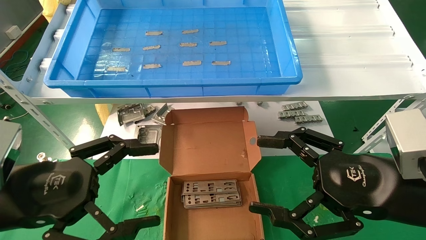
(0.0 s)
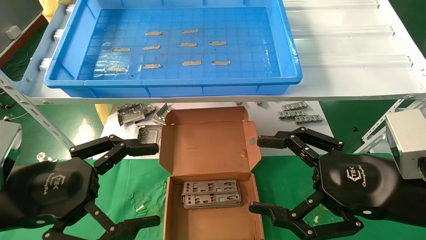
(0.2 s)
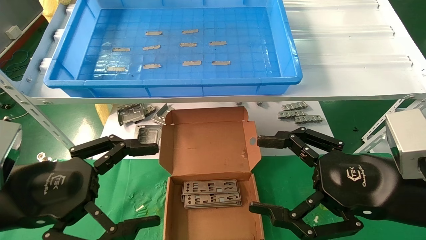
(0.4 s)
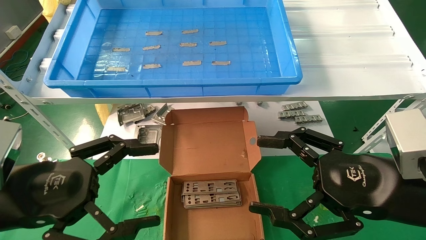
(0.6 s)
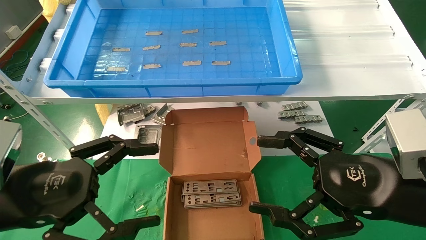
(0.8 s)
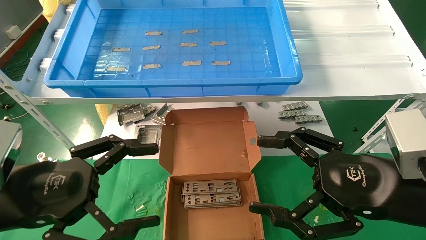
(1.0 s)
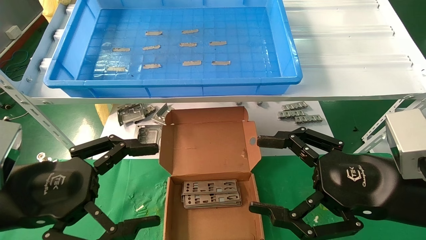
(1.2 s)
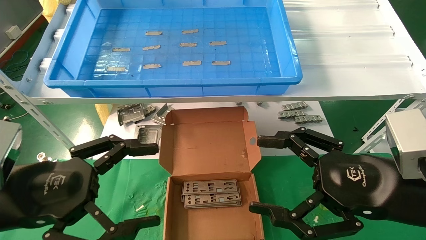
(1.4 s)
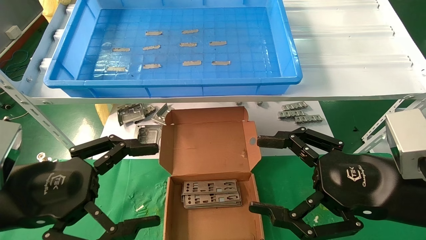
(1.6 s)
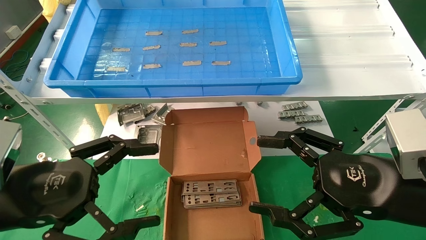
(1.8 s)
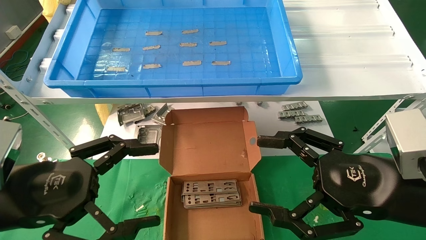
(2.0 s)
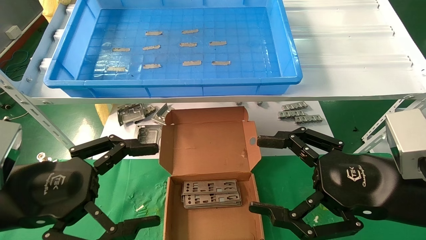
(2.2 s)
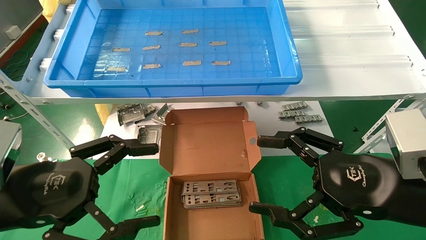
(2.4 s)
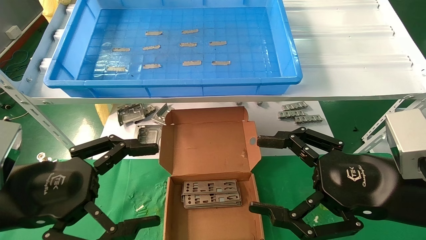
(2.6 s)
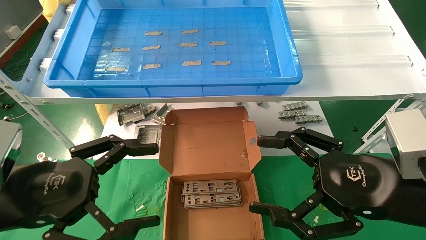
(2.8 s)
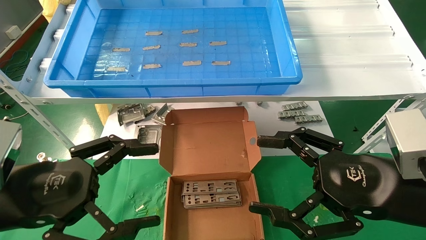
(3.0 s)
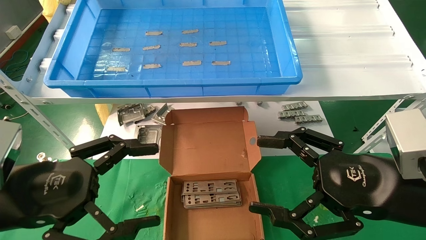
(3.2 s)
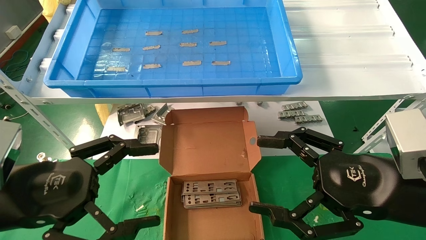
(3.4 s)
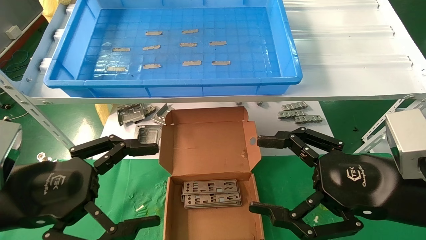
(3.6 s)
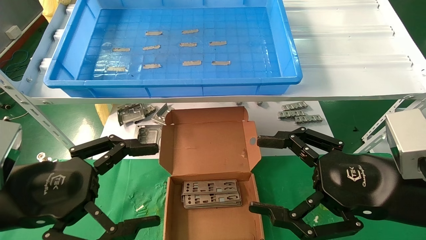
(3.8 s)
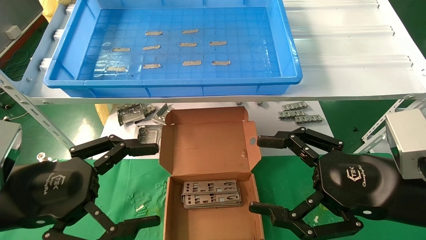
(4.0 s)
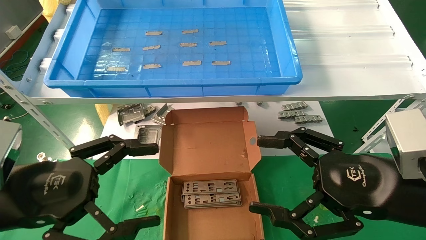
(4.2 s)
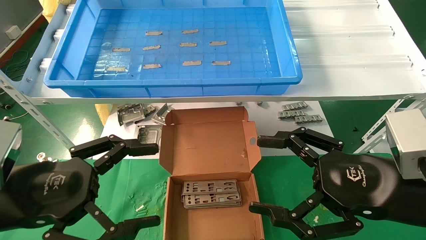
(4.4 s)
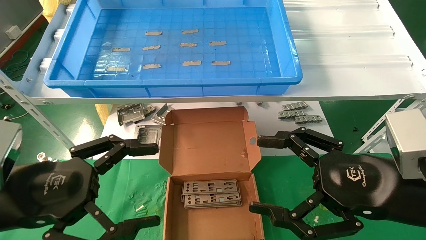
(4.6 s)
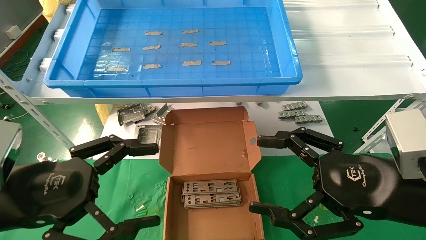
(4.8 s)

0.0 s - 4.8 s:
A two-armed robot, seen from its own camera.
Task of the whole recording: pick up the parts on the tray and put them in the cardboard box.
0.0 s - 4.8 s: Both grippers stay about where they are.
